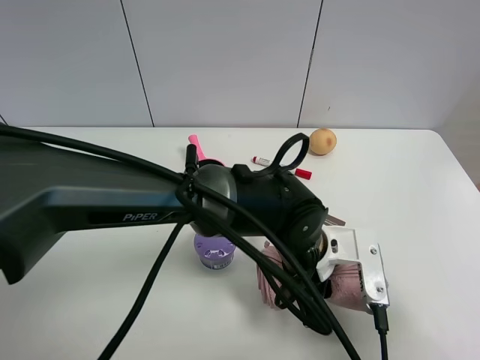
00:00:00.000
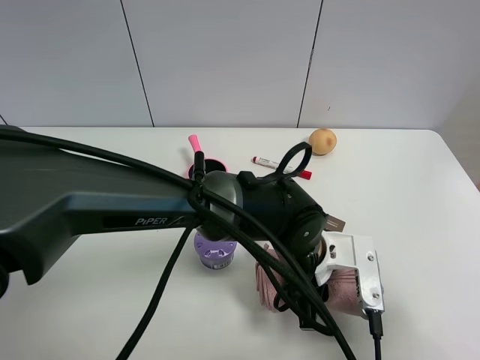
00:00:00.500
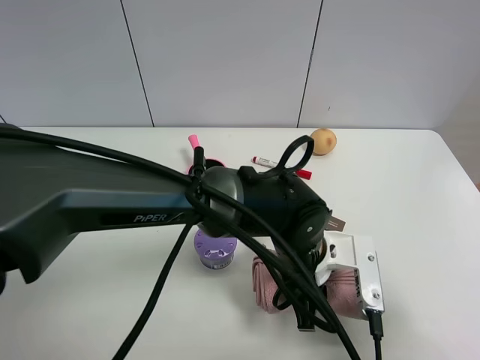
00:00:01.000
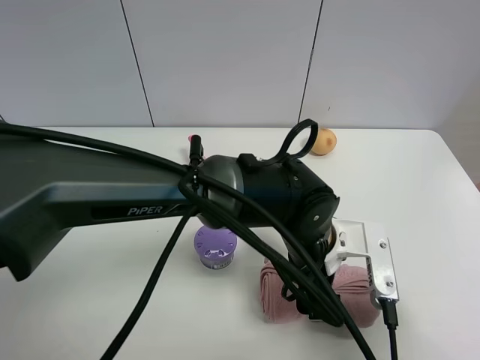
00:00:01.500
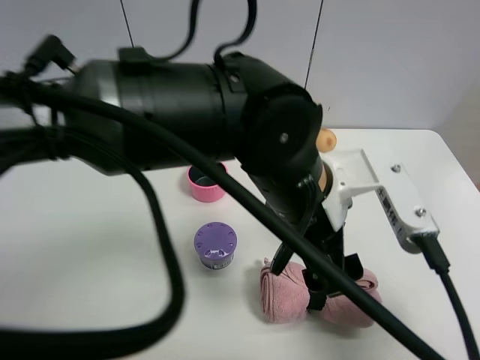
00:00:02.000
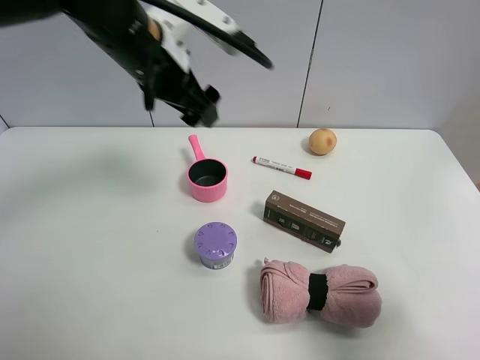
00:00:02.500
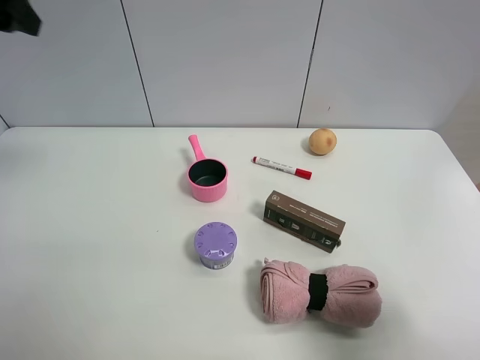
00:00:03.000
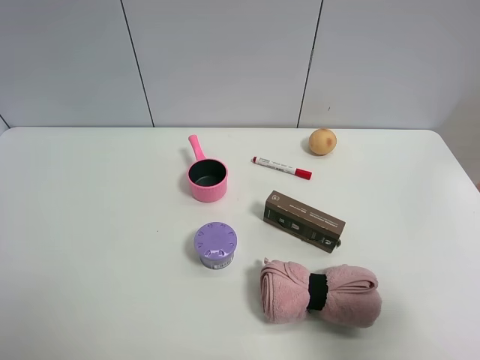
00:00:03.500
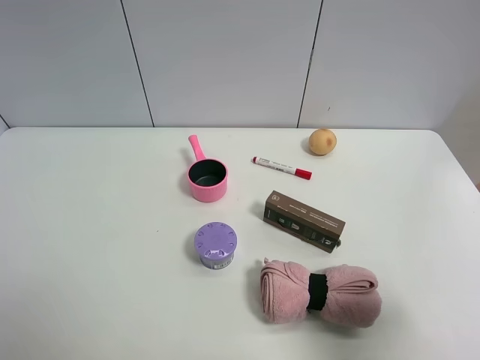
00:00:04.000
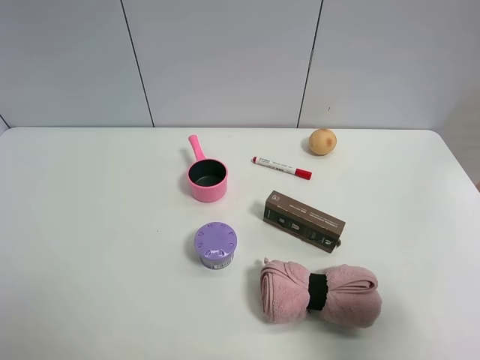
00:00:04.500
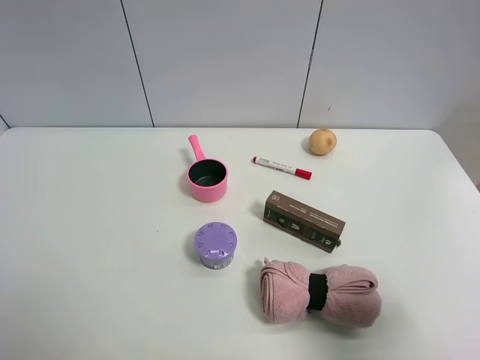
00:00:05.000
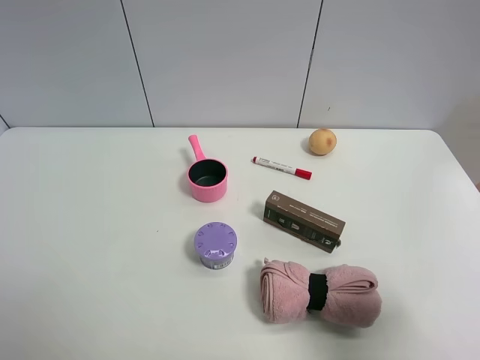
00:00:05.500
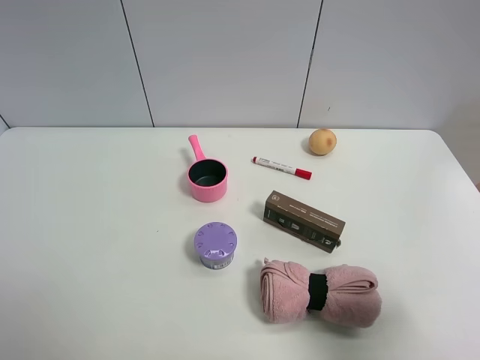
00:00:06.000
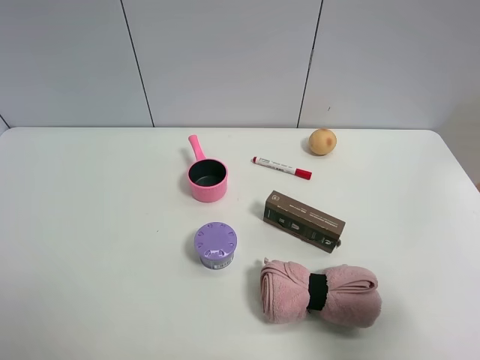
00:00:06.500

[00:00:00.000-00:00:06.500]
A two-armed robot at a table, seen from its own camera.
Task of the whole recording: the gripper move the object.
00:00:00.000 to 00:00:02.000: The left gripper travels upward by roughly 15 cm, and opens.
00:00:02.000 to 00:00:04.500: The left gripper goes about 40 cm to the left and backward.
